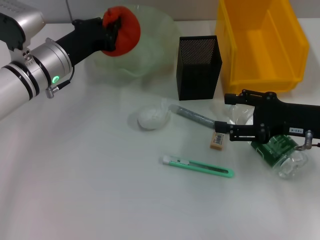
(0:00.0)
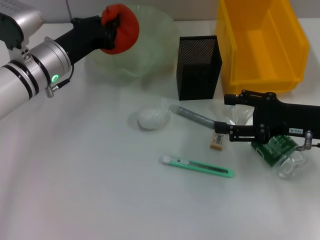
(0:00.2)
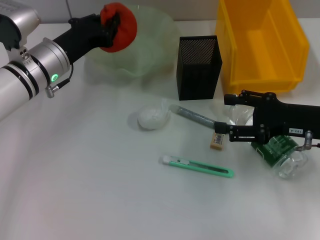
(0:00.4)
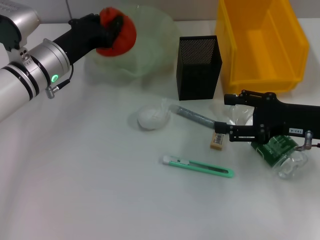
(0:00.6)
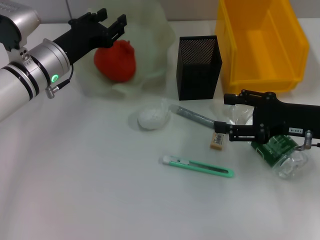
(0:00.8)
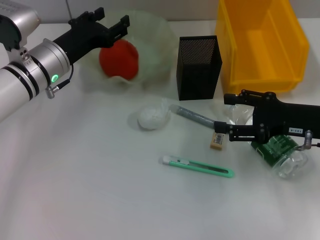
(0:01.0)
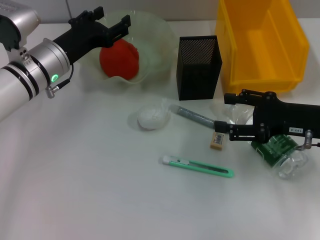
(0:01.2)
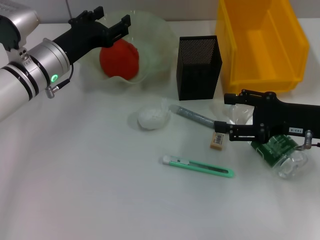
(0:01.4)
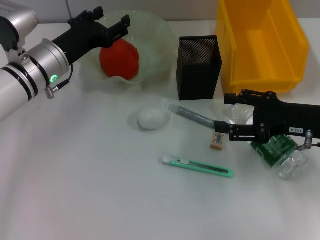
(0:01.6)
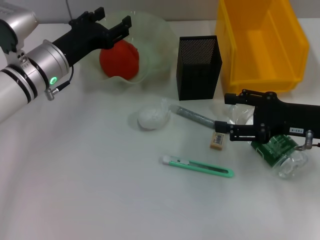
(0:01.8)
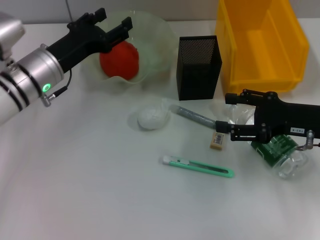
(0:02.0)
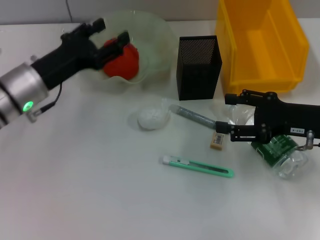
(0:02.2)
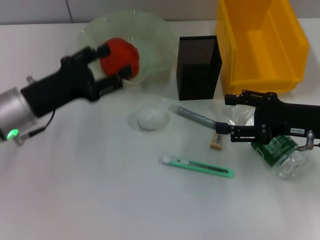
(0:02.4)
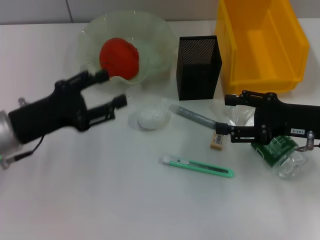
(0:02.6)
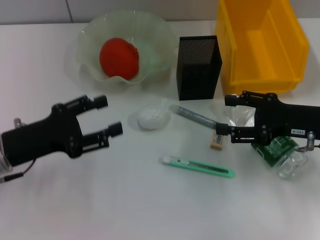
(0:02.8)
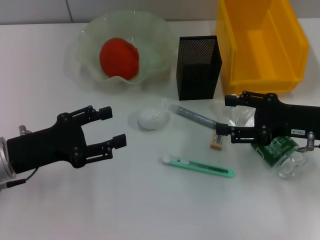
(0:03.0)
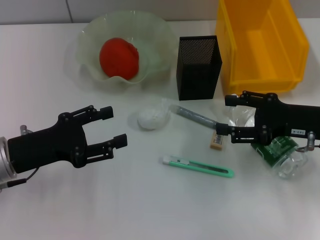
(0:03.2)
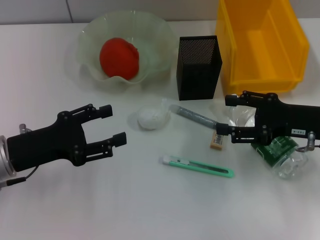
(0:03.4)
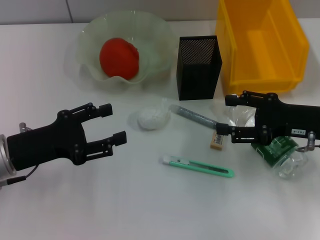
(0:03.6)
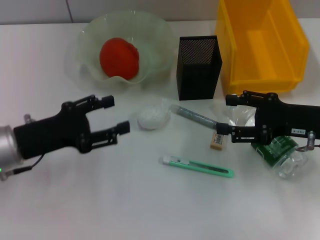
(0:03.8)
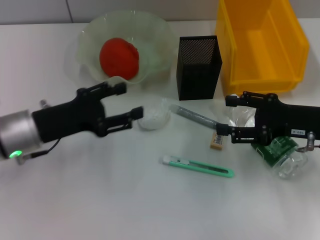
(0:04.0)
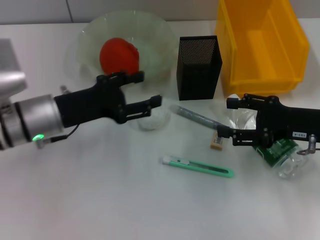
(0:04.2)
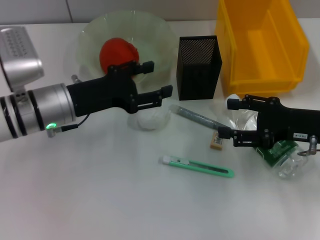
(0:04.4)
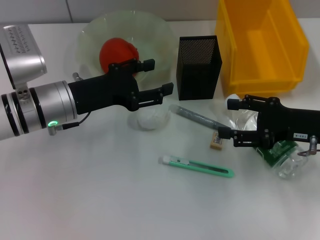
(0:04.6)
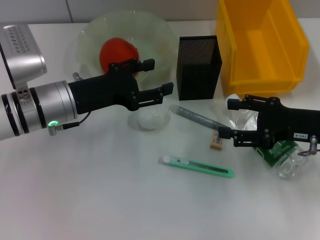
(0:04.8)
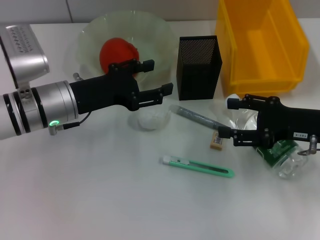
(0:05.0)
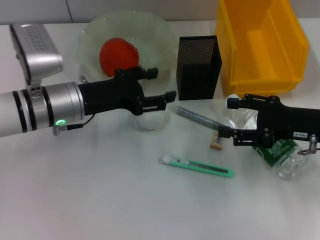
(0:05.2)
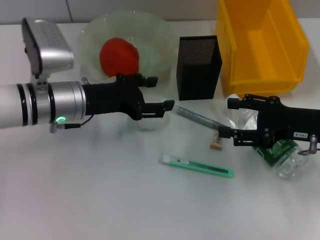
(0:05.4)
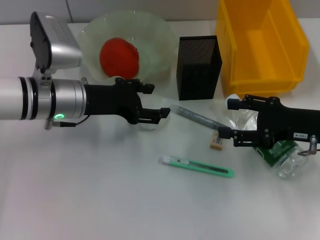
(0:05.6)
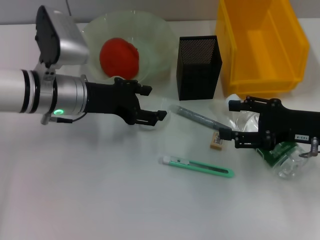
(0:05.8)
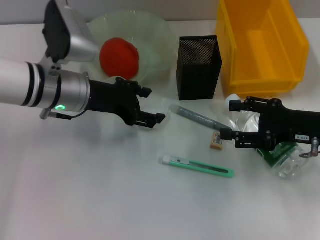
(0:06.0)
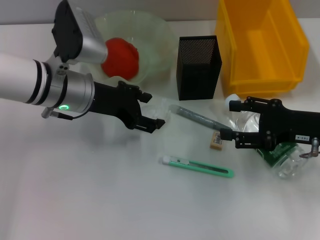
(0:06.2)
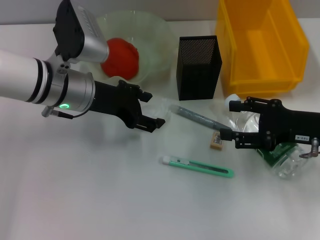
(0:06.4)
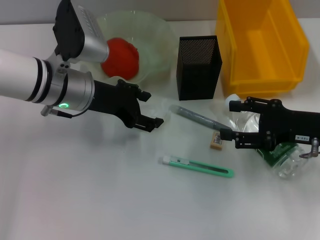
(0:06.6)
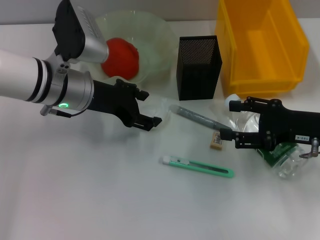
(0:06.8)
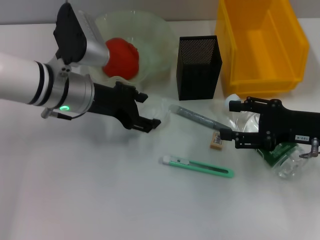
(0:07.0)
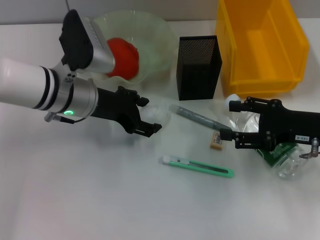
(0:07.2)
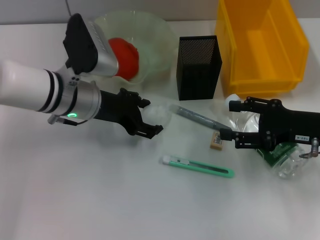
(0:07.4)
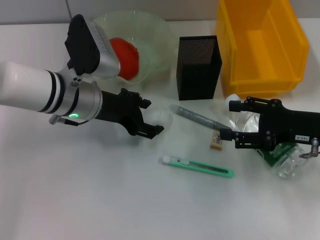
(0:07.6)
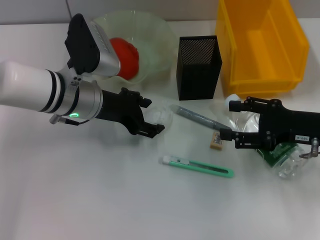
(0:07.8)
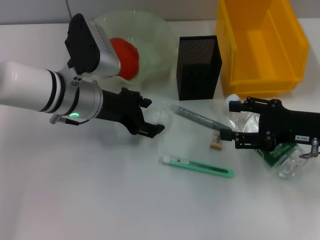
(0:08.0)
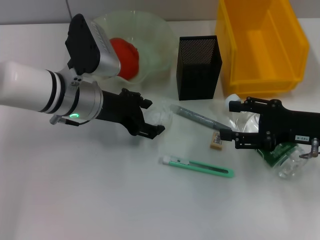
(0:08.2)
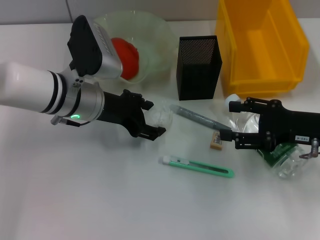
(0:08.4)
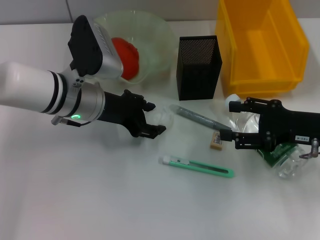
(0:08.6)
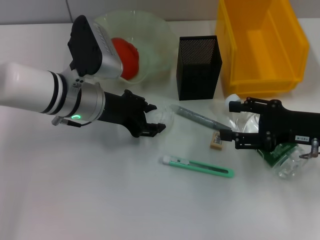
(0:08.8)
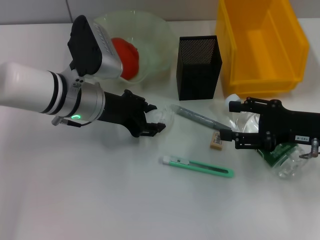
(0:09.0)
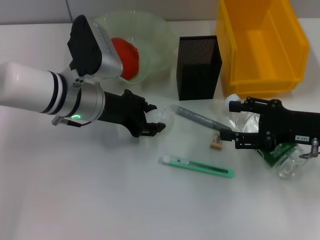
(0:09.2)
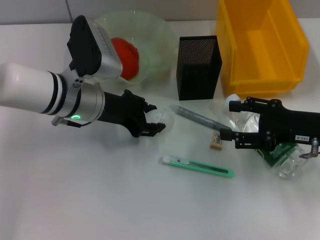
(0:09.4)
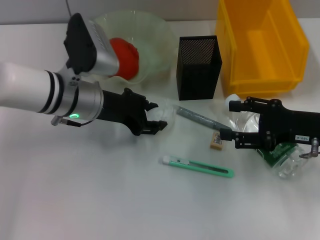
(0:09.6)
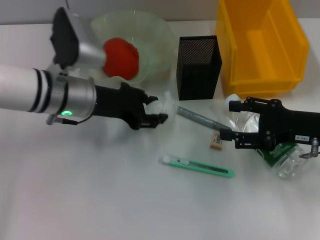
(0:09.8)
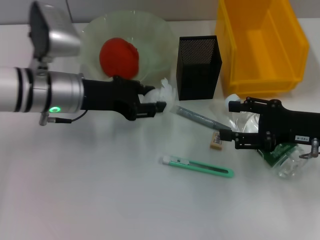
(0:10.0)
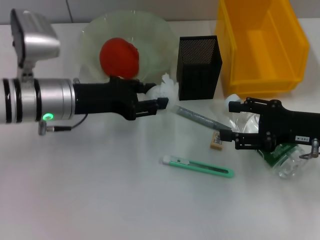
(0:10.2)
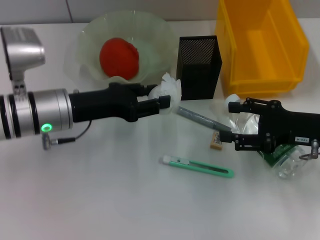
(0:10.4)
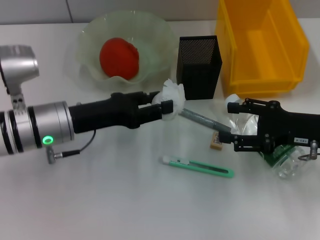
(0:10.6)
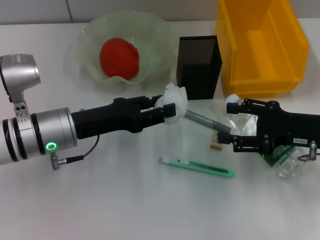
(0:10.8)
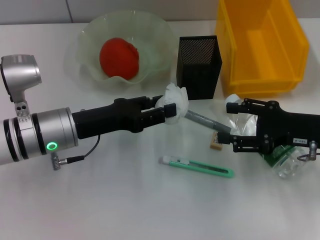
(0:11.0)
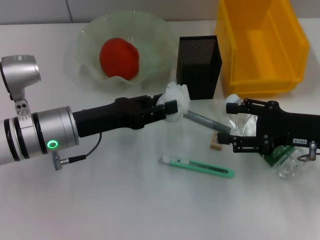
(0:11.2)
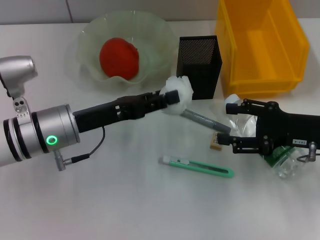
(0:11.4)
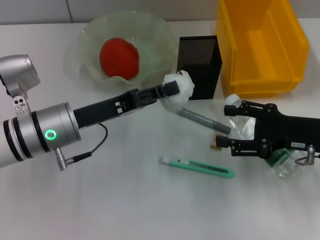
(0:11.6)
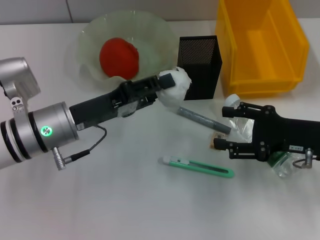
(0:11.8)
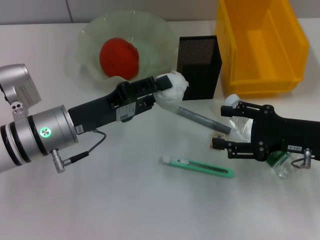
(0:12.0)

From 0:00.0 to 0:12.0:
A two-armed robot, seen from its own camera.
Step, from 0:01.2 to 0:08.6: Grab the paper ball with the left hand.
From 0:00.0 to 0:01.6: The left gripper opens up.
From 0:01.6 to 0:03.0: The left gripper shifts some 15 cm backward and to the left.
From 0:03.0 to 0:04.4: The left gripper is displaced forward and to the right by some 10 cm.
From 0:06.0 to 0:07.6: The grippers stay close to where they were, moving slightly.
From 0:07.6 to 0:09.0: Neither gripper changes place.
From 0:09.0 to 0:10.4: The left gripper ends up approximately 5 cm from where it was.

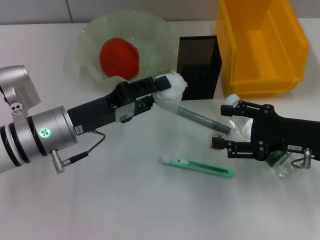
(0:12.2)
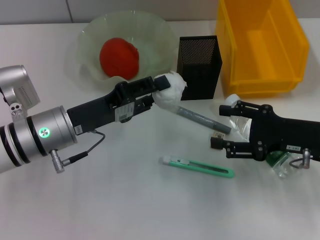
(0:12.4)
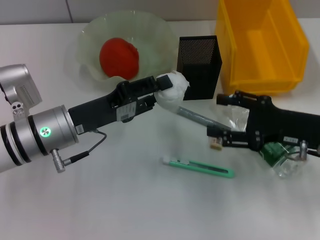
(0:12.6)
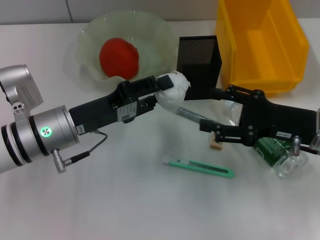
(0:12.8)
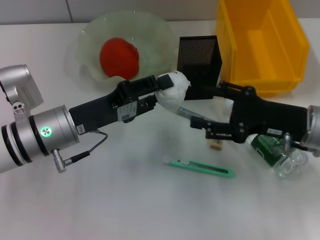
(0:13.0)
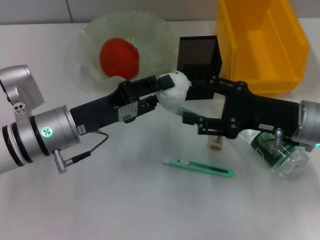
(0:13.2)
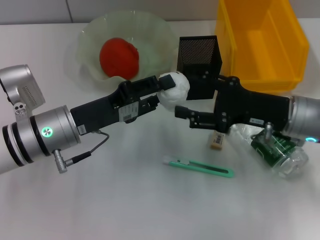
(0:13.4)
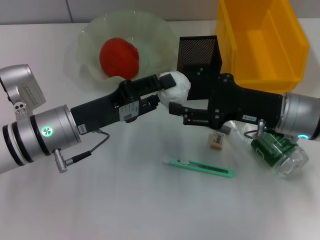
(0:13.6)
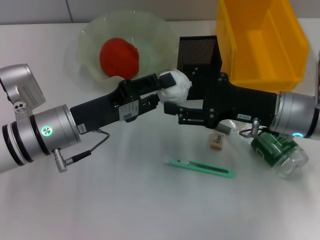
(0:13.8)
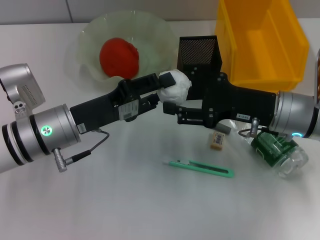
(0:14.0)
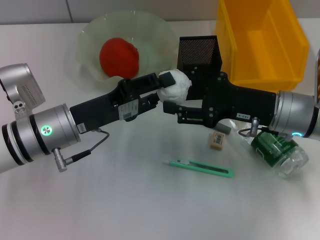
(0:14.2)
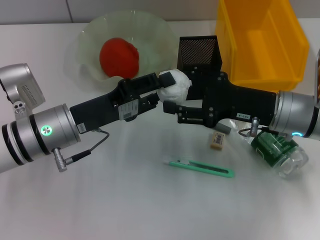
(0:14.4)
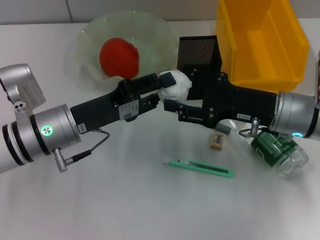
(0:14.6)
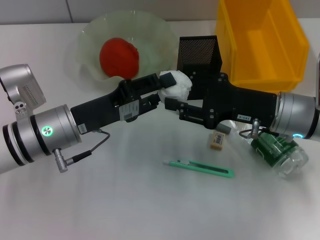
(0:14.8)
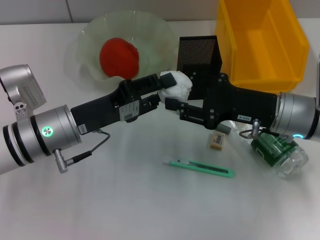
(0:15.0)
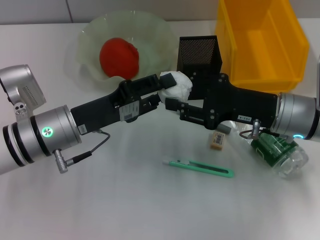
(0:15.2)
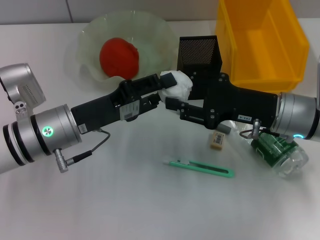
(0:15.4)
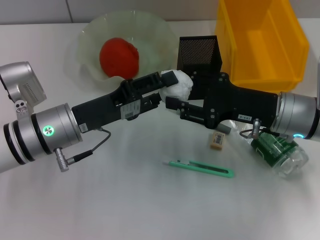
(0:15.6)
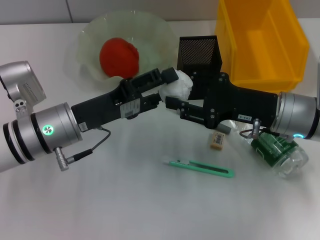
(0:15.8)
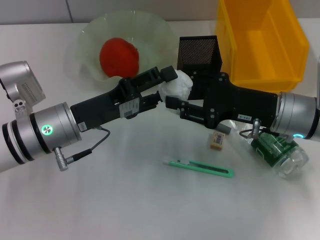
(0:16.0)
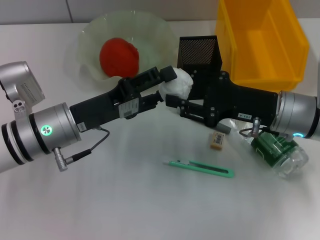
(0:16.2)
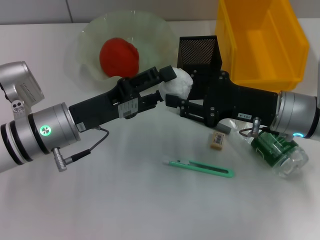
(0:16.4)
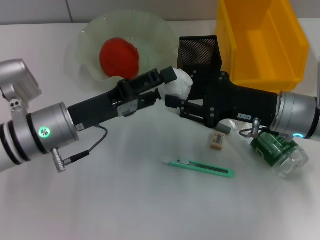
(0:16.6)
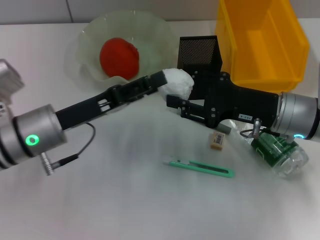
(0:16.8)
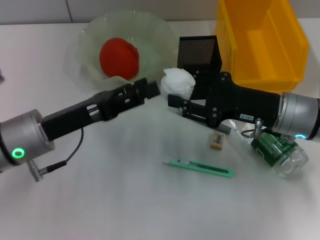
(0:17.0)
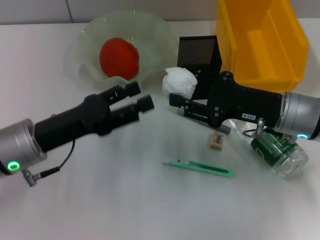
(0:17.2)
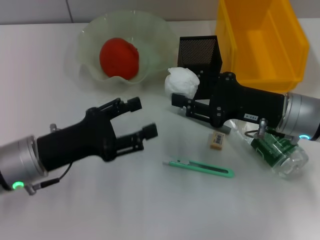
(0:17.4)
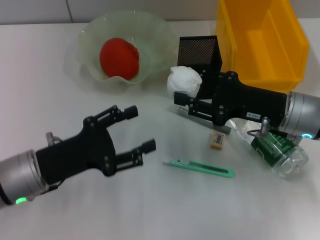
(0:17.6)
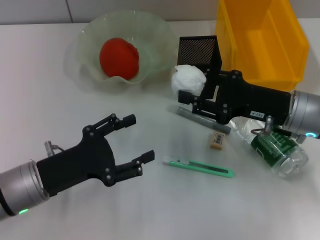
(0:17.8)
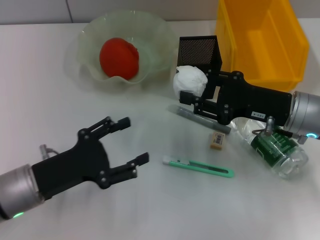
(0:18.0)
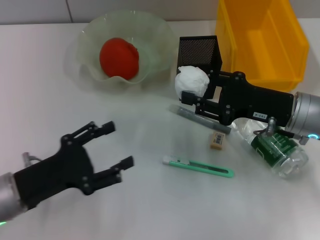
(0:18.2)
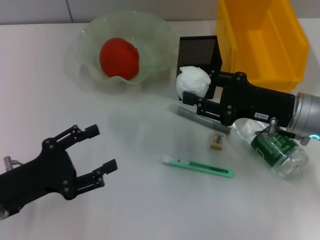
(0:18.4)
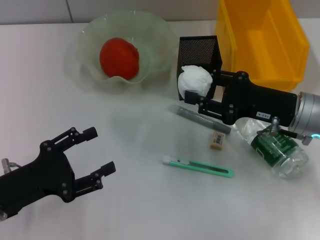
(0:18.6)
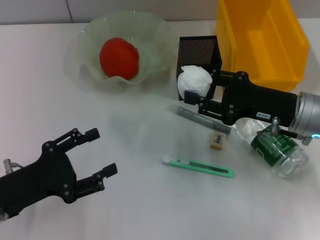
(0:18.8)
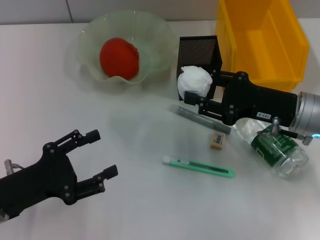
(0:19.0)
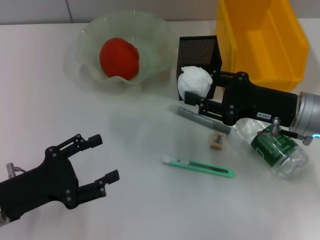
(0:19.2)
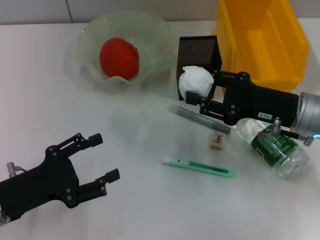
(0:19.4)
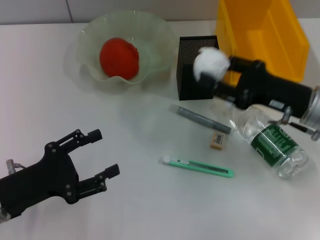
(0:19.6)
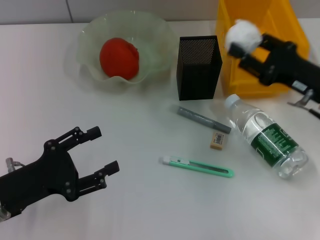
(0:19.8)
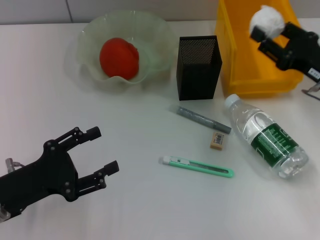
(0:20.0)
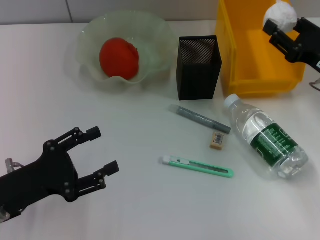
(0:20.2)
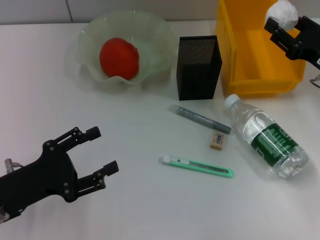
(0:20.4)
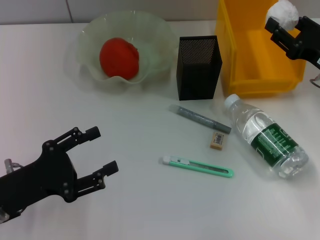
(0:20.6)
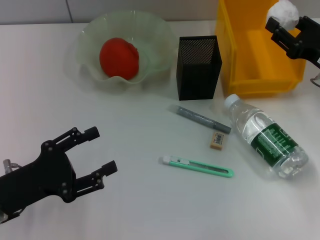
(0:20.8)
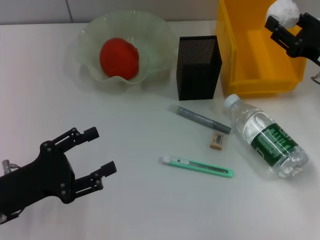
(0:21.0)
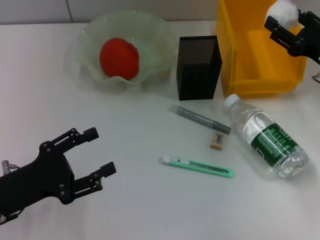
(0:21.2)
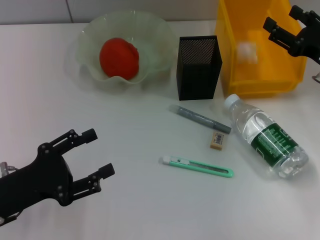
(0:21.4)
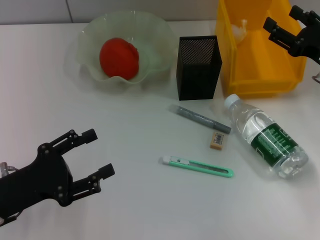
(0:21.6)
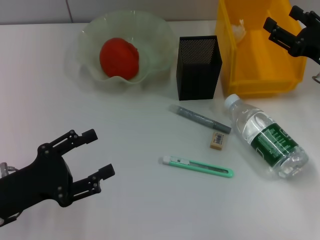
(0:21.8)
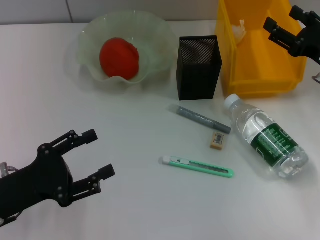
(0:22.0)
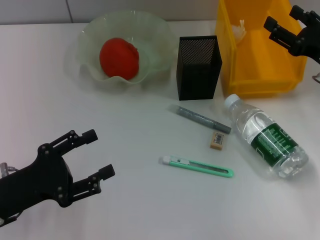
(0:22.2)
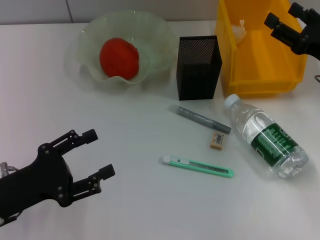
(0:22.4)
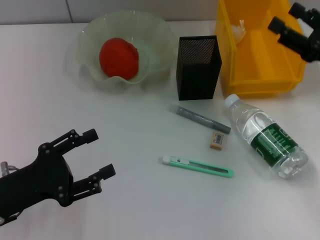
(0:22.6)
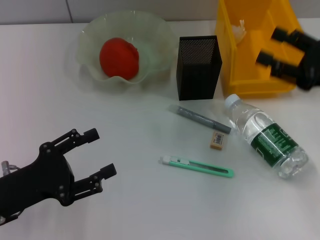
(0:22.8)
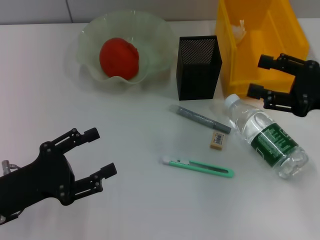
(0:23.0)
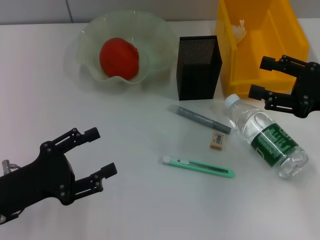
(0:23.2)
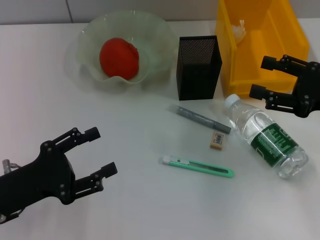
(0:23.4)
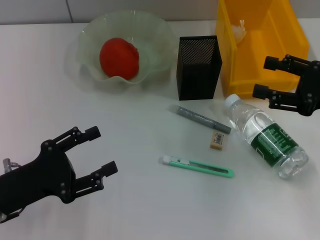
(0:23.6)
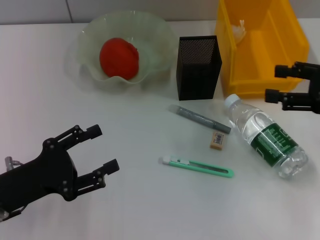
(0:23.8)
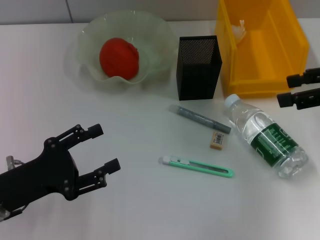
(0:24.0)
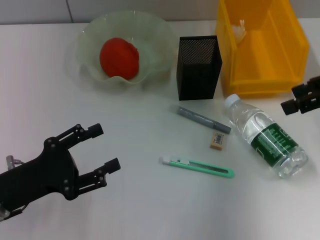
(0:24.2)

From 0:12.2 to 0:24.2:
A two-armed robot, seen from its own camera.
Step, from 0:12.2 to 0:17.0: Pass the paper ball from the left hand to the right hand.
Step, from 0:17.4 to 0:22.2: Place the paper ball into the trash can with the right hand.
From 0:12.2 to 0:13.8: The right gripper moves to the left, some 5 cm.
From 0:13.8 to 0:15.2: The two grippers keep their place.
From 0:15.2 to 0:16.6: The grippers move only a little.
From 0:16.6 to 0:18.2: The left gripper moves backward and to the left, roughly 10 cm.
From 0:19.8 to 0:22.6: The grippers make only small movements.
From 0:22.6 to 0:24.2: The right gripper goes some 10 cm upward.
